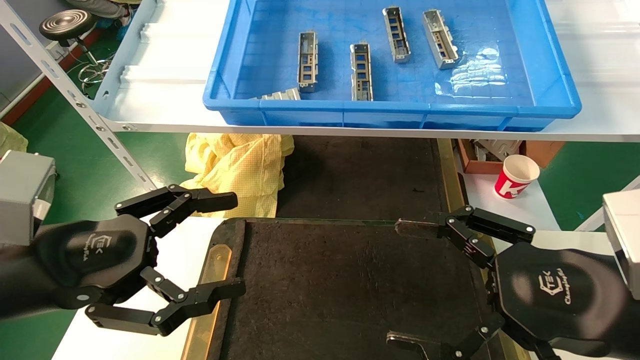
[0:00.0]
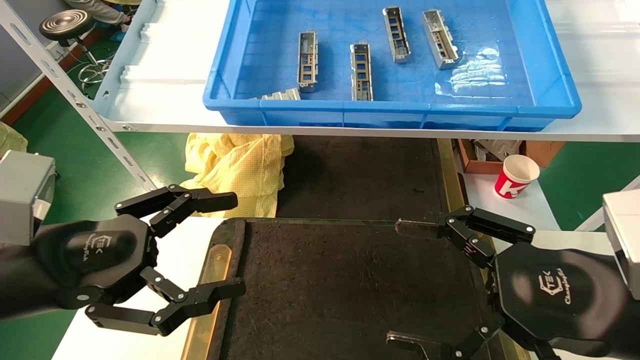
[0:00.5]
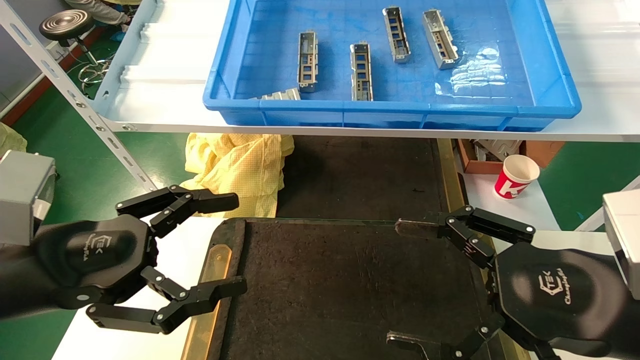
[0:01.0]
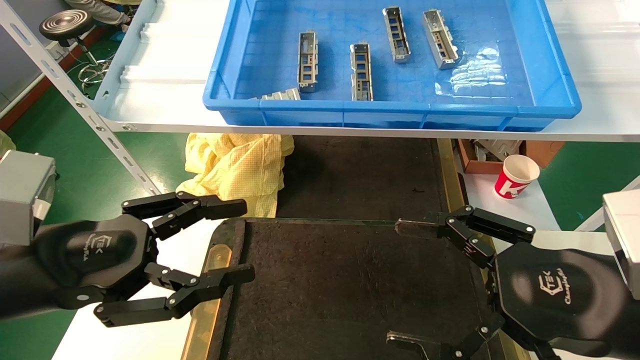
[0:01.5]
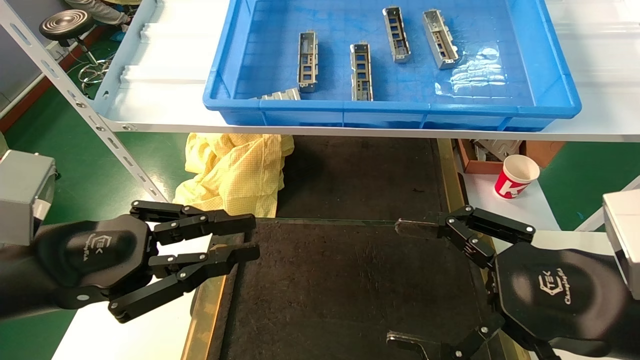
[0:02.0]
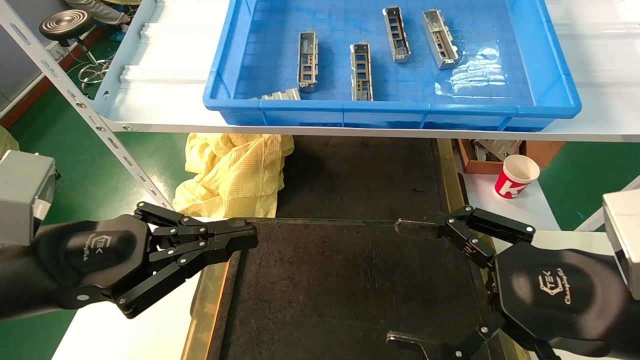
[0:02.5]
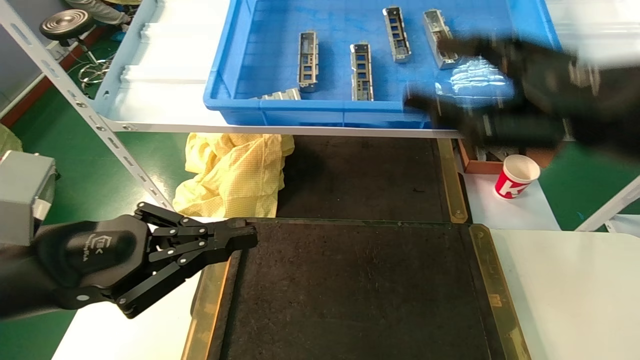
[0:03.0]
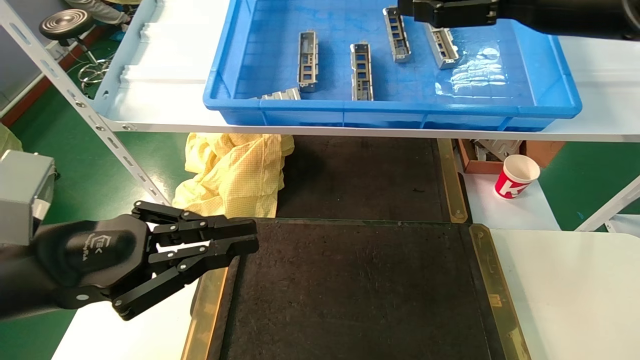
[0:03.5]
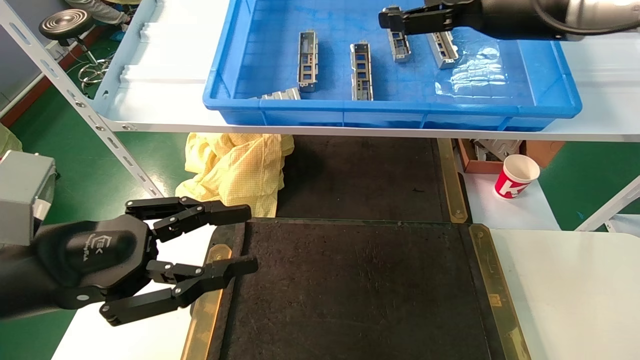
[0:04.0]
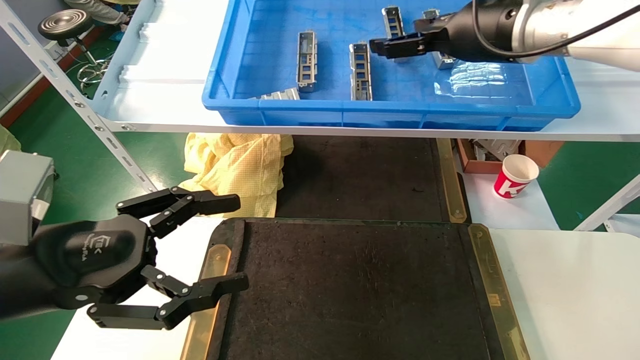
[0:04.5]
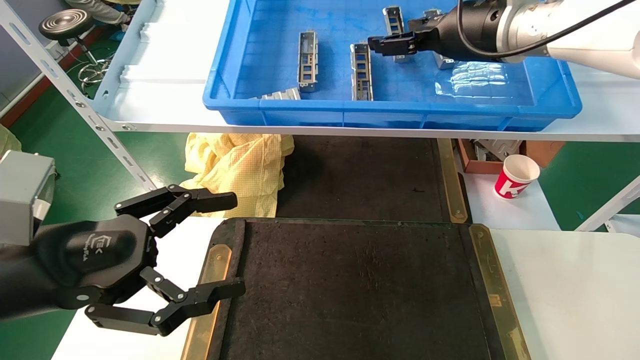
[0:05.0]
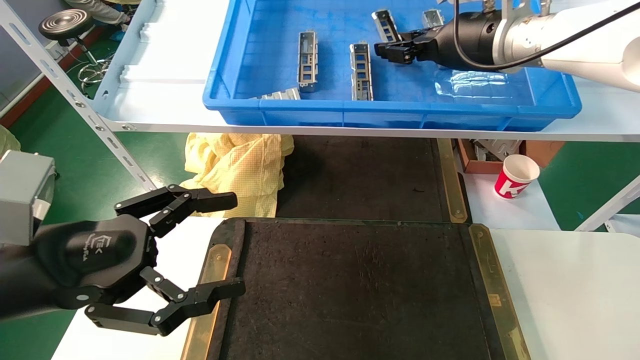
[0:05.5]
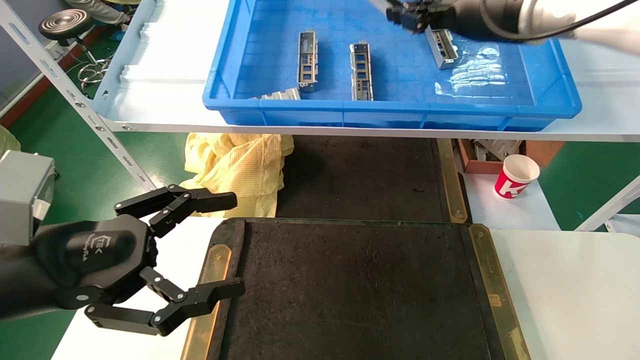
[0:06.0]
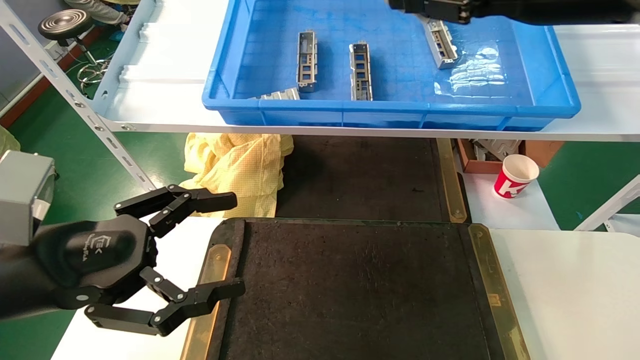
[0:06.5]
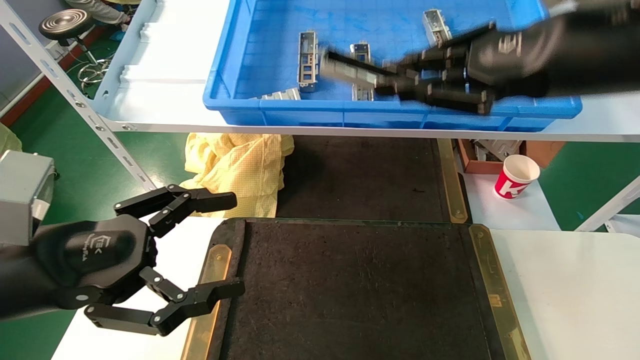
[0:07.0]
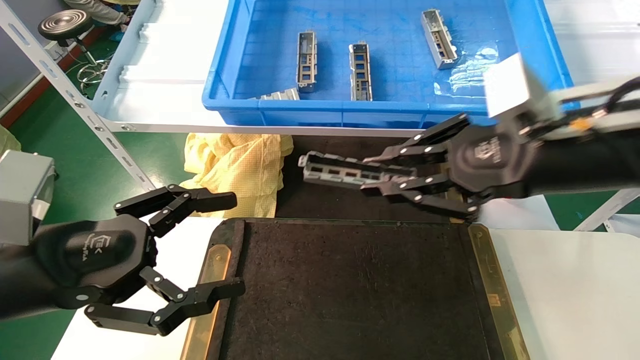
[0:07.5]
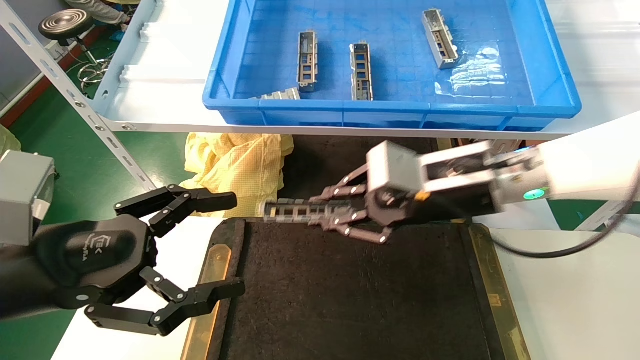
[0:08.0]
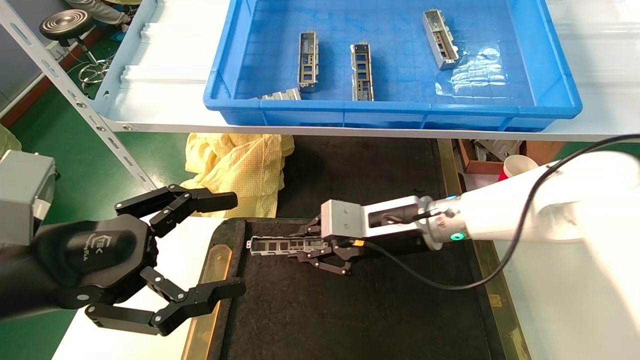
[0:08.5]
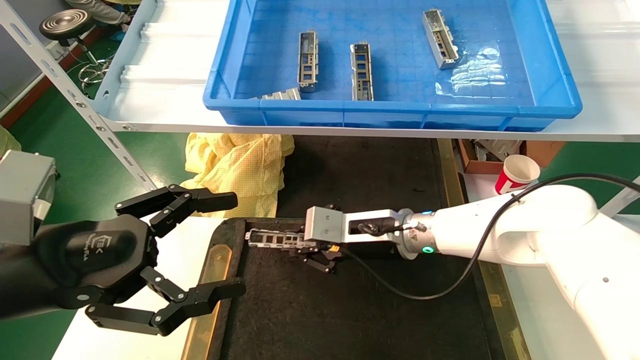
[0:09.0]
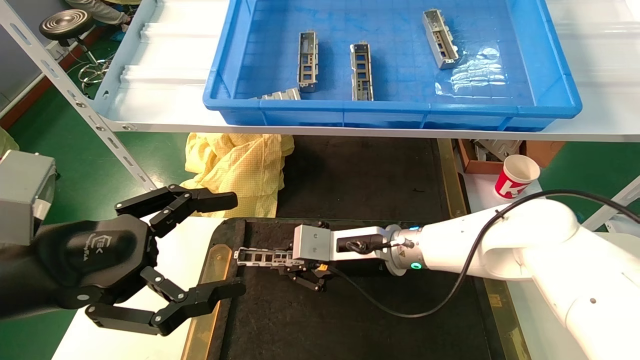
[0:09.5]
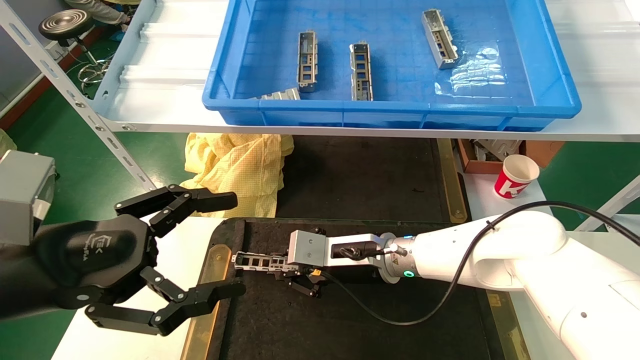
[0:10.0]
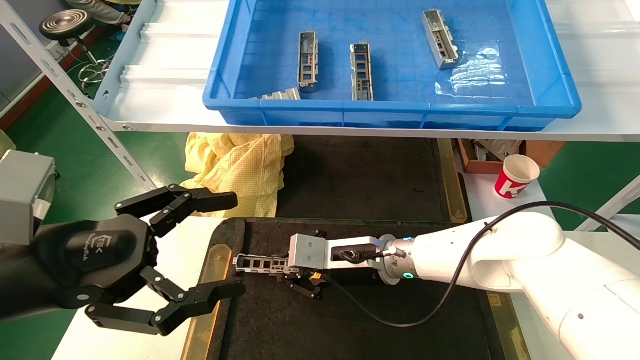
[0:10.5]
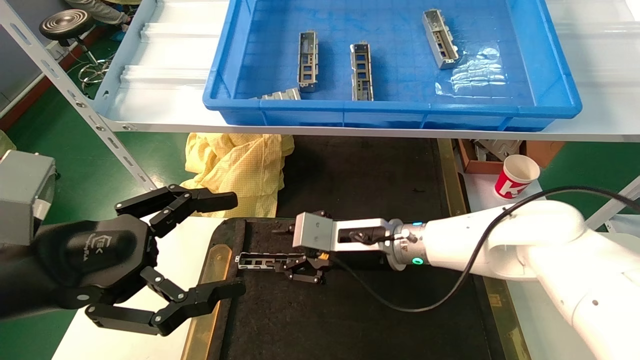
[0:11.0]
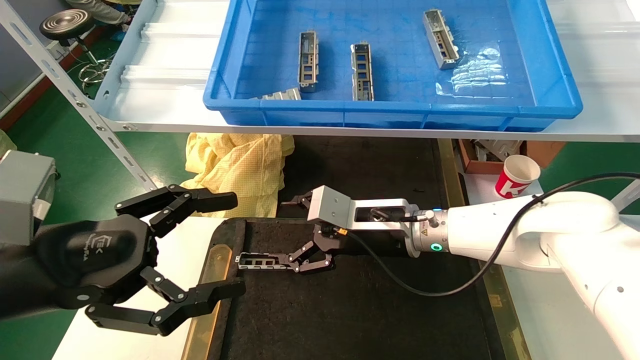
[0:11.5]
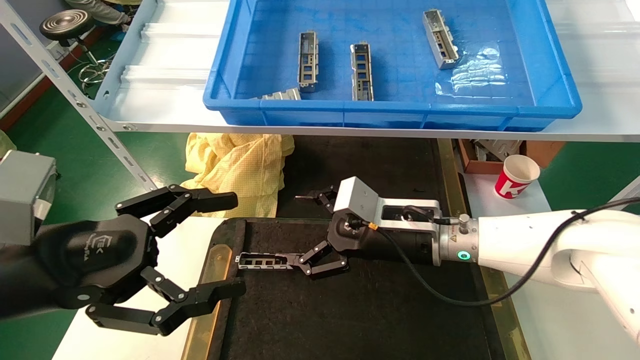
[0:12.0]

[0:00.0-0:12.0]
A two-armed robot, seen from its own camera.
Task of the whole recording: grasp the part and place them on the black container.
Step, 0:01.5 to 0:05.5: Pick up and lift the front USB bracket from the feeding area.
Step, 0:06.0 to 0:10.5: Place the front USB bracket into the box.
0:00.0 to 0:02.0: The left gripper closes its fingers.
0:02.0 to 0:04.0: The right gripper shifts some 30 cm upward and forward.
0:04.0 to 0:06.0: The left gripper opens up, while the right gripper closes its fingers.
0:06.0 to 0:08.0: The right gripper travels downward by about 20 cm.
0:08.0 to 0:10.0: The right gripper travels downward, to the left and forward by approximately 20 cm.
0:10.0 to 0:12.0: The right gripper moves to the right and upward, about 5 cm, and opens up.

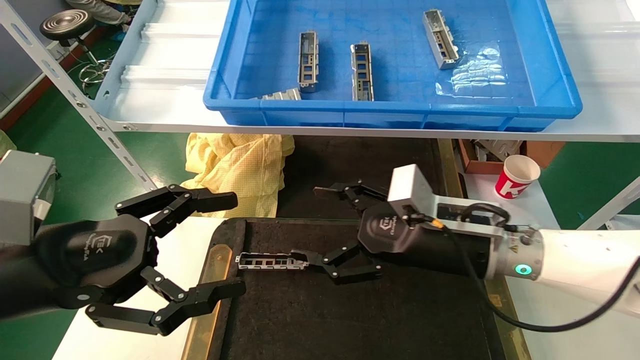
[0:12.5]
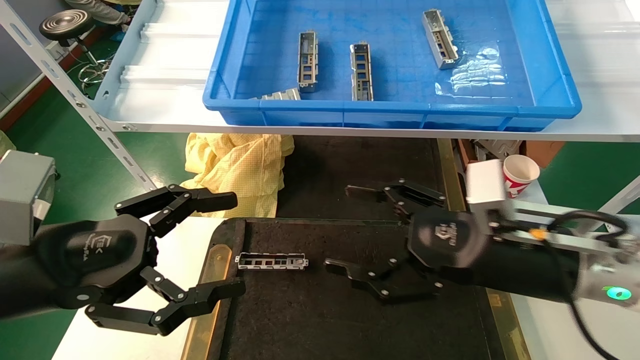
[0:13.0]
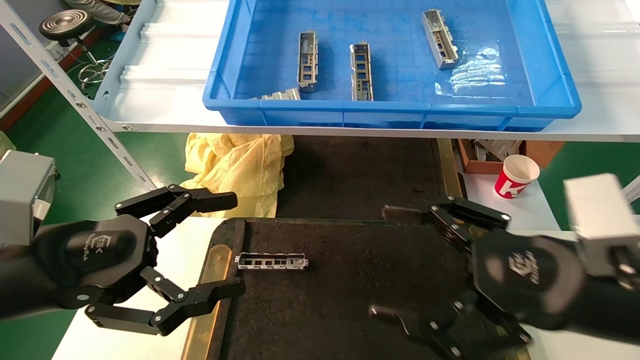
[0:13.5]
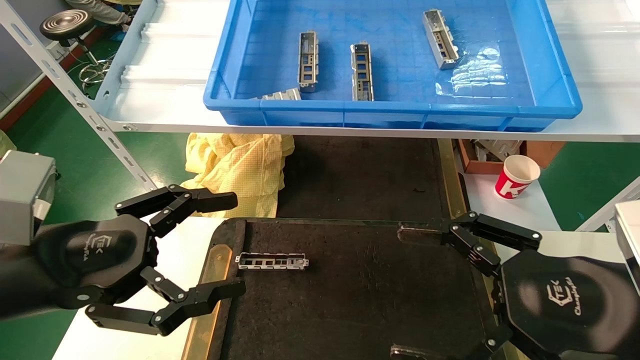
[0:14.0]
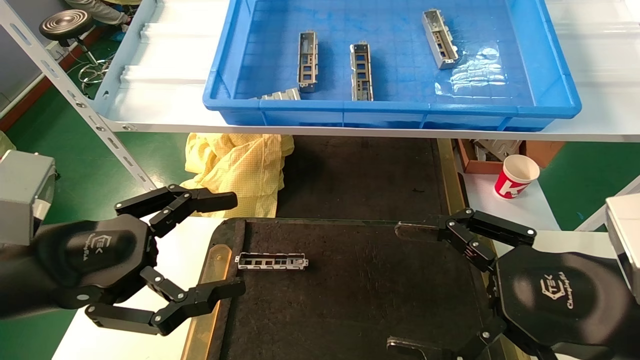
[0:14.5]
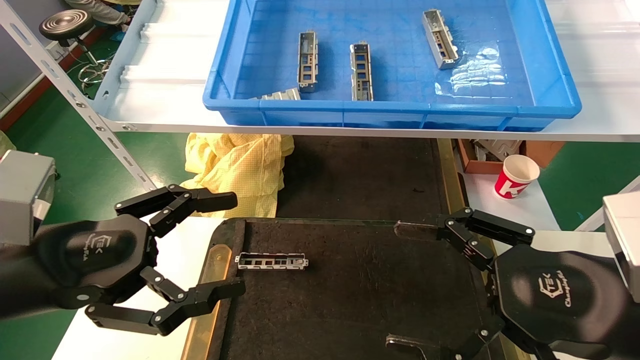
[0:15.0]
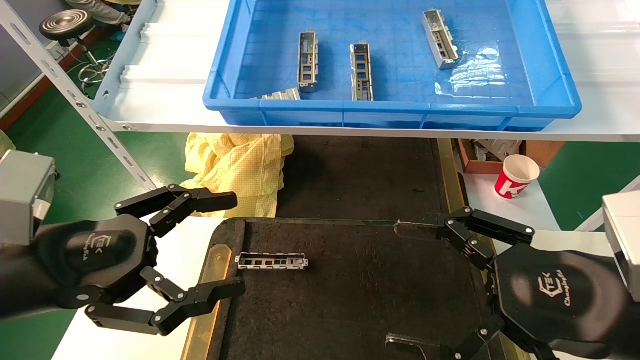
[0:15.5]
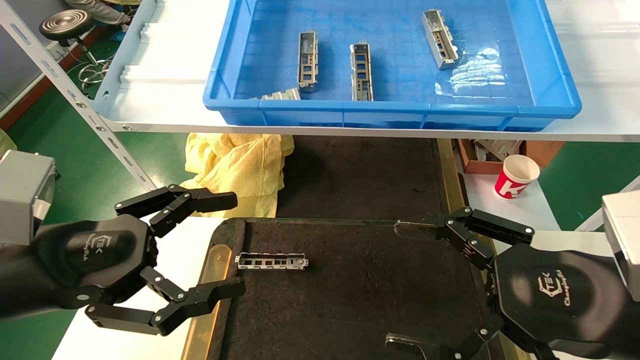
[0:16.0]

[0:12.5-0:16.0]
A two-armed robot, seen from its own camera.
Task of the whole recording: grasp the part and place them on the black container.
0:12.5 to 0:14.5: The right gripper travels backward and to the right by about 20 cm.
0:14.5 to 0:16.0: Both grippers stay put.
